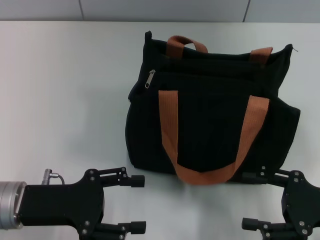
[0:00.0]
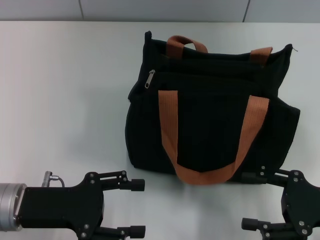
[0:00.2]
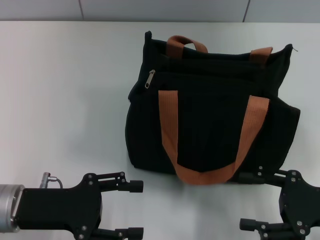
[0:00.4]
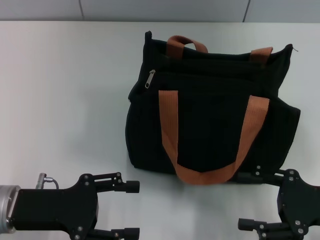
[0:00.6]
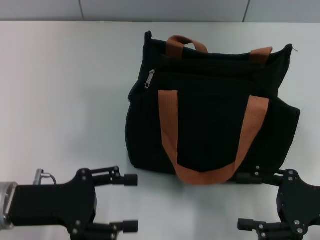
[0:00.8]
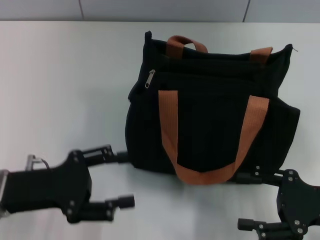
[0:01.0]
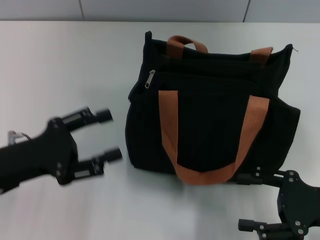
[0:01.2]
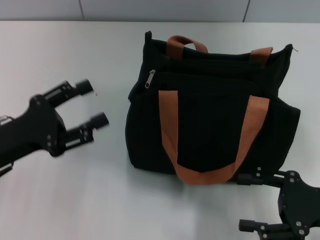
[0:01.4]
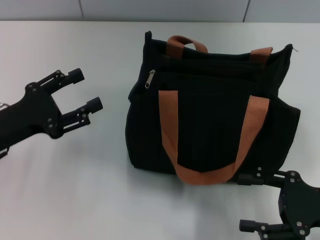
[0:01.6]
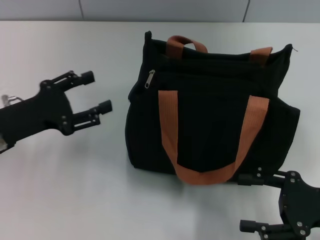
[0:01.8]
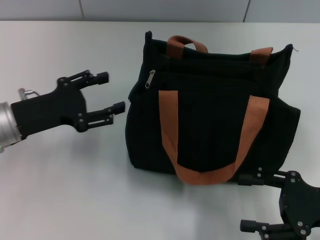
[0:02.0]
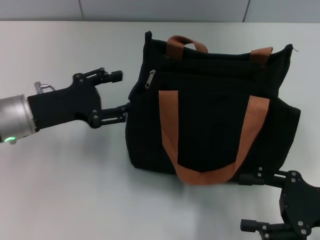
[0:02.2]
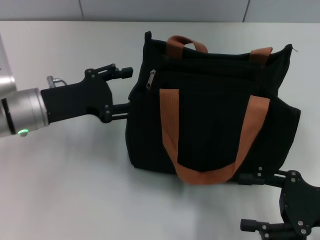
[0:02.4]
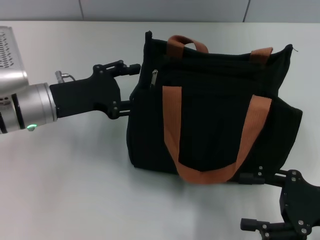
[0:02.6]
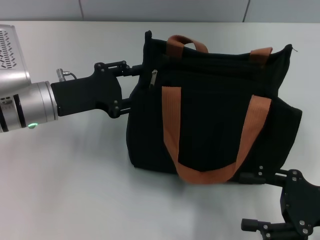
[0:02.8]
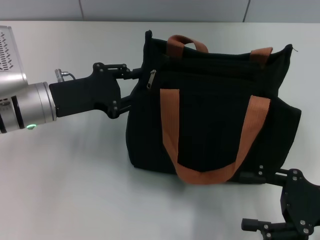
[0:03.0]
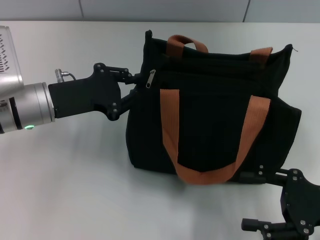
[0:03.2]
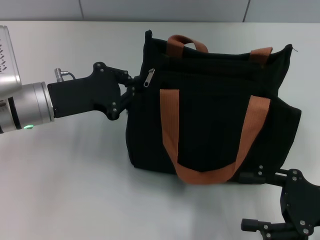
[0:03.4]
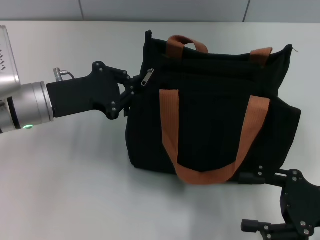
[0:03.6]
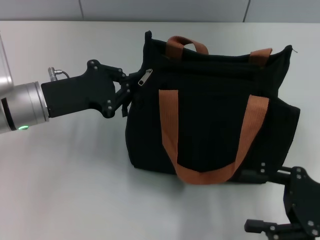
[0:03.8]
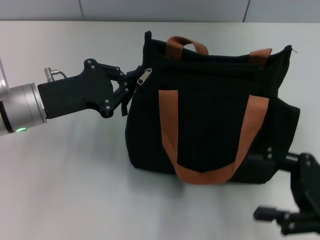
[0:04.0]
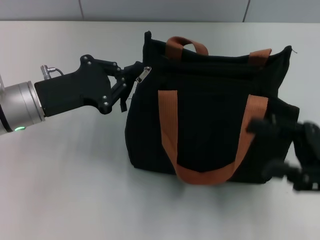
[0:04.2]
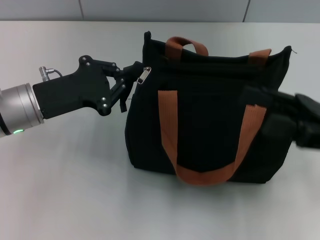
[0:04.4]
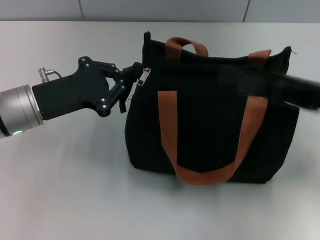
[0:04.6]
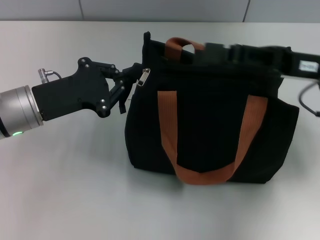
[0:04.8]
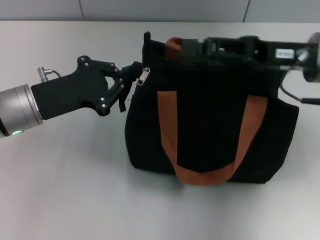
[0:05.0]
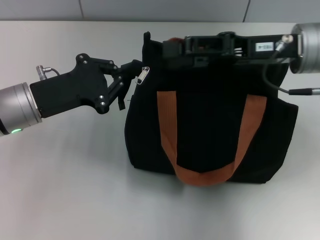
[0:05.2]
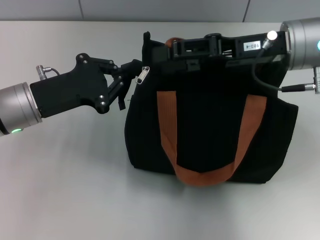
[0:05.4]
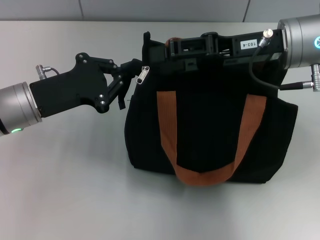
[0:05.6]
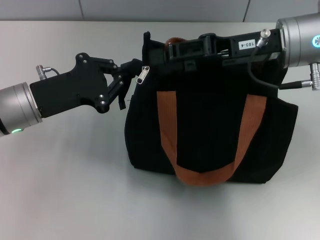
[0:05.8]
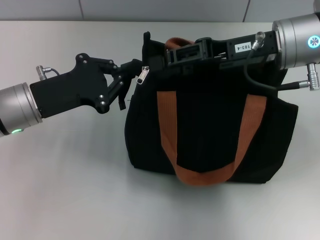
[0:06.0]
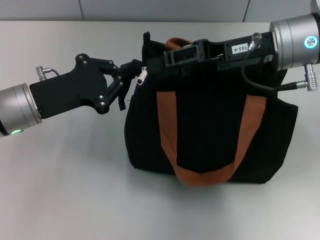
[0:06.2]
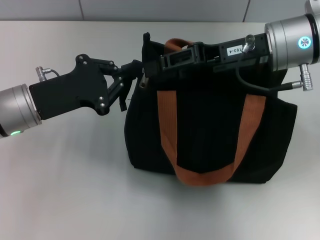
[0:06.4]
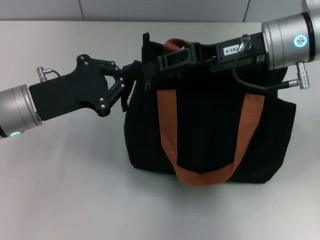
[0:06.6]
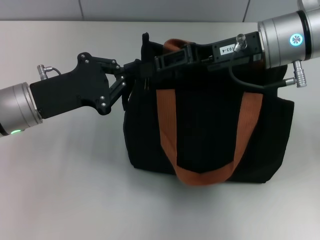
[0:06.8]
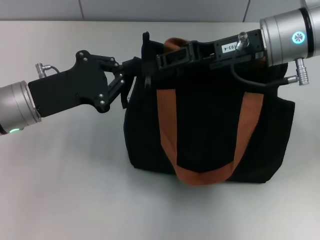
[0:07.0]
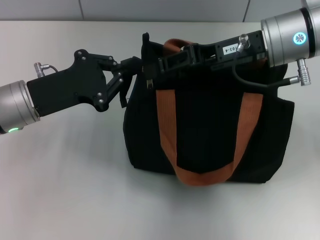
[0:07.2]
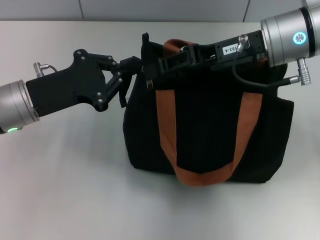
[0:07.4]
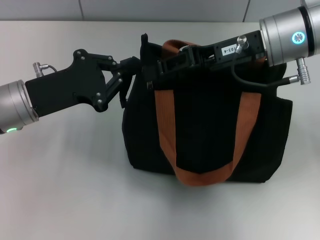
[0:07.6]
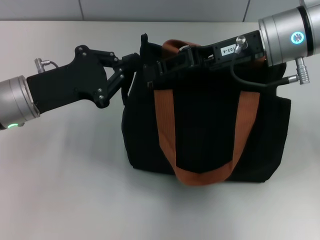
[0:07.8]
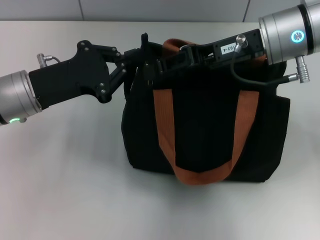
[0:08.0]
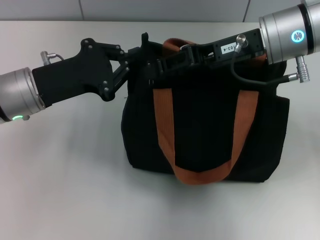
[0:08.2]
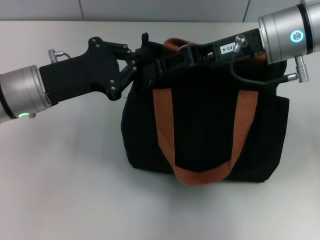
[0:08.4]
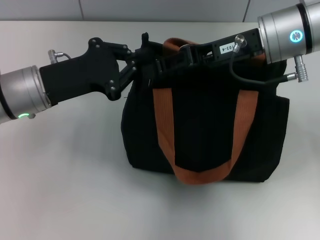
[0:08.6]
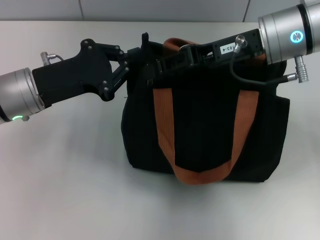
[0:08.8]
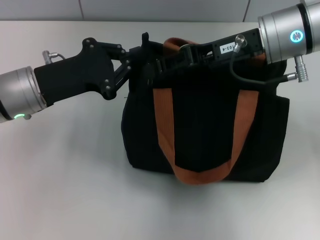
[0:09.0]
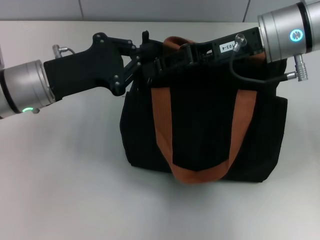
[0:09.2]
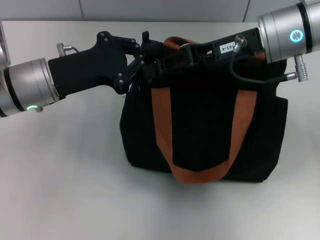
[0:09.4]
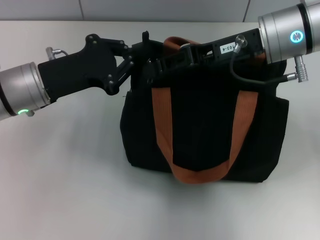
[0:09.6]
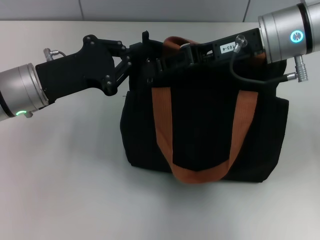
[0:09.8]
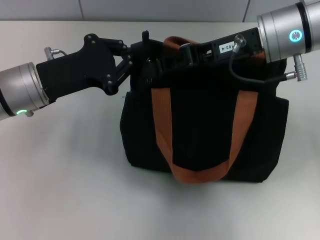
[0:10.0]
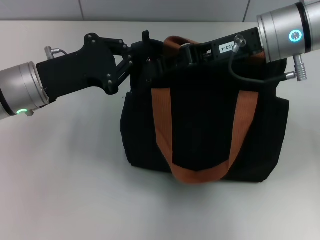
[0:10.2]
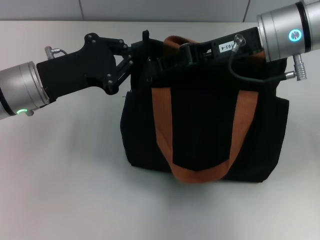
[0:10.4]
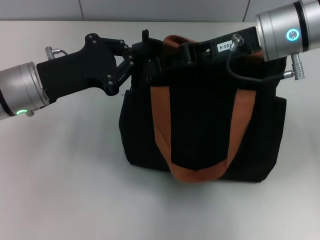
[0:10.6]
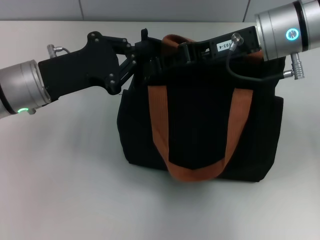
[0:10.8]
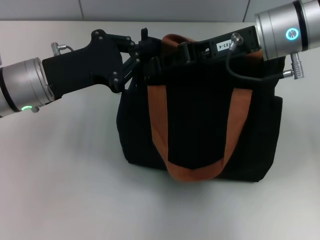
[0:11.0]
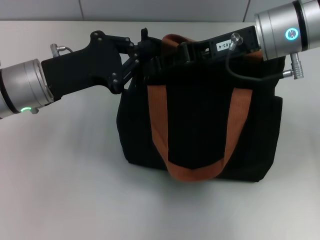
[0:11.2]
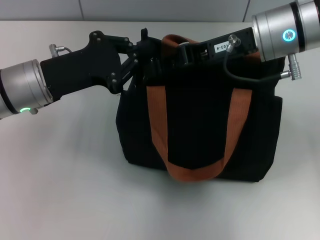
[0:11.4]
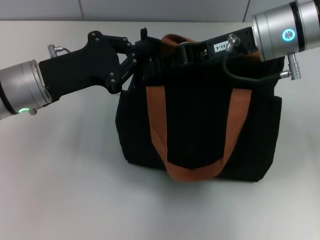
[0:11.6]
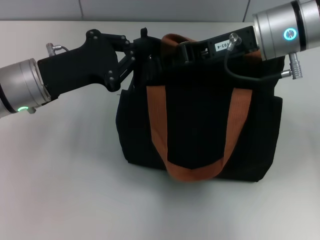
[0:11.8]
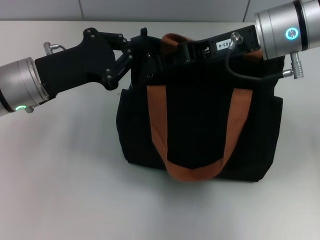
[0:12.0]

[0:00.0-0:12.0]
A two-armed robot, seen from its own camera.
0:00.0 to 0:01.6: The left gripper shifts by some 5 cm.
0:01.6 to 0:03.0: The left gripper moves forward and to the right, roughly 10 cm.
0:03.0 to 0:04.4: The left gripper closes its fingers, while the right gripper heads upward and forward, covering approximately 10 cm.
0:04.4 to 0:06.0: The right gripper travels forward, to the left and upward by about 15 cm.
0:06.0 to 0:10.4: The grippers stay close to where they were, moving slightly.
0:10.4 to 0:12.0: Neither gripper changes place.

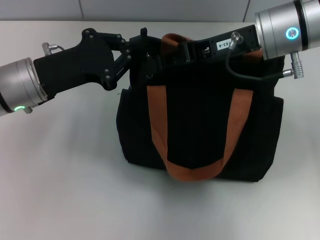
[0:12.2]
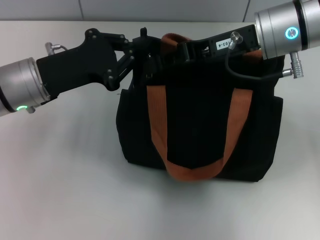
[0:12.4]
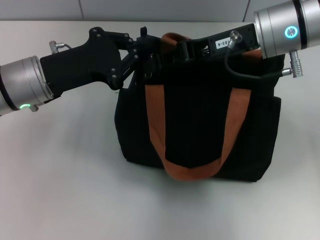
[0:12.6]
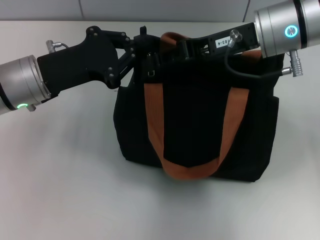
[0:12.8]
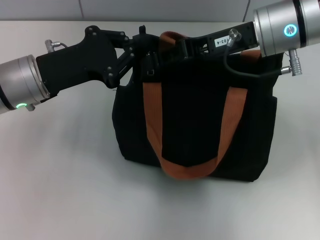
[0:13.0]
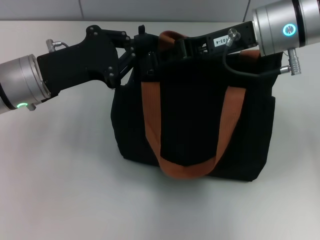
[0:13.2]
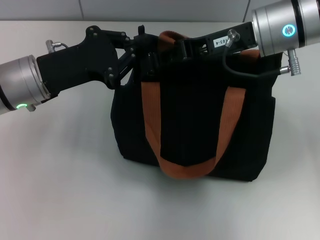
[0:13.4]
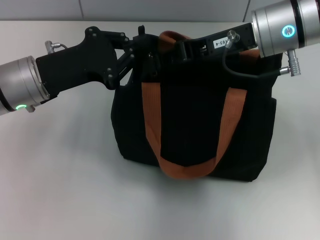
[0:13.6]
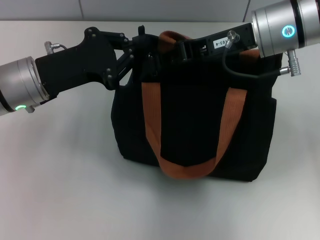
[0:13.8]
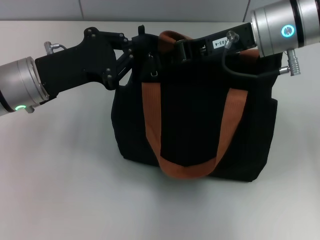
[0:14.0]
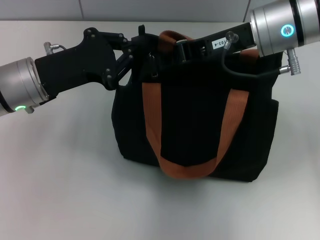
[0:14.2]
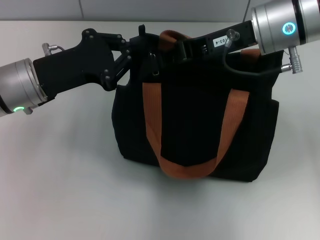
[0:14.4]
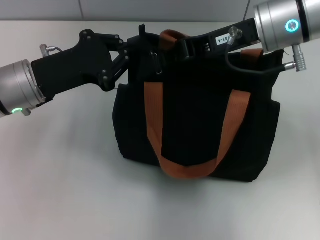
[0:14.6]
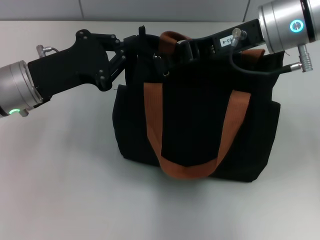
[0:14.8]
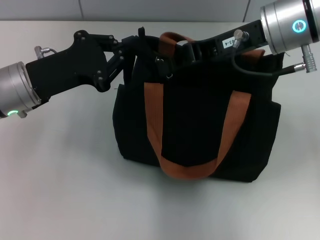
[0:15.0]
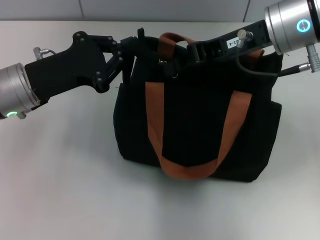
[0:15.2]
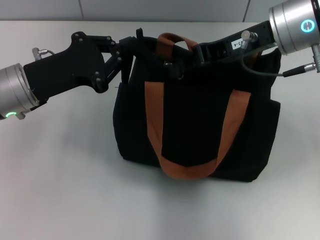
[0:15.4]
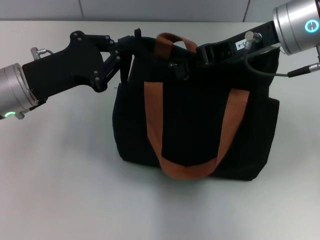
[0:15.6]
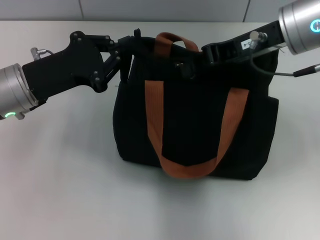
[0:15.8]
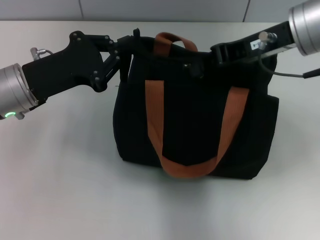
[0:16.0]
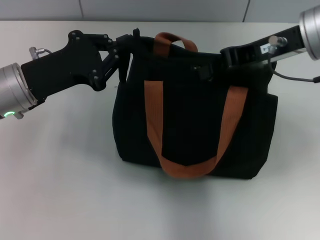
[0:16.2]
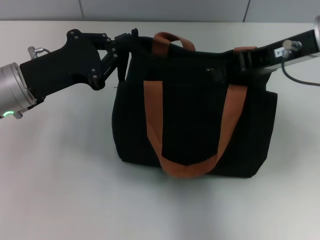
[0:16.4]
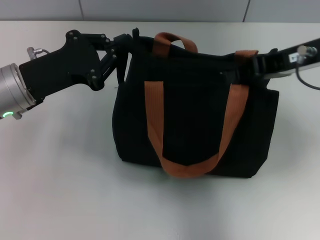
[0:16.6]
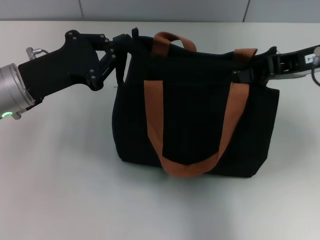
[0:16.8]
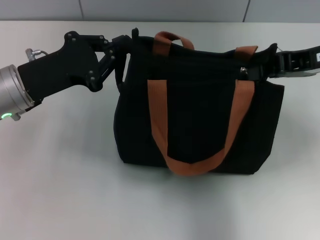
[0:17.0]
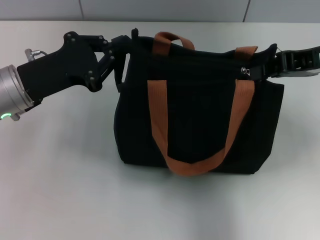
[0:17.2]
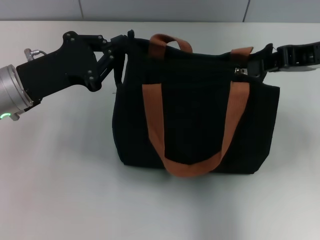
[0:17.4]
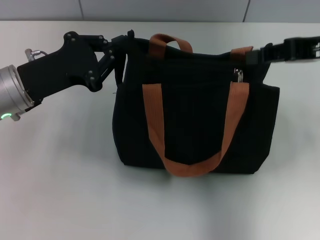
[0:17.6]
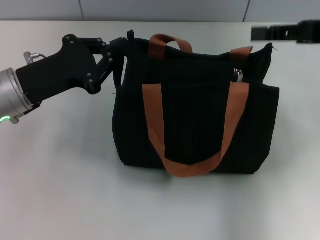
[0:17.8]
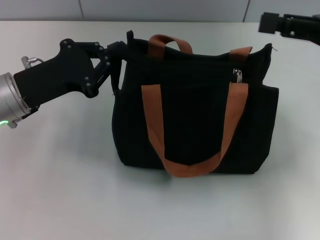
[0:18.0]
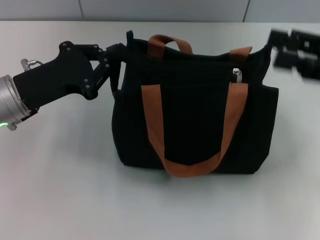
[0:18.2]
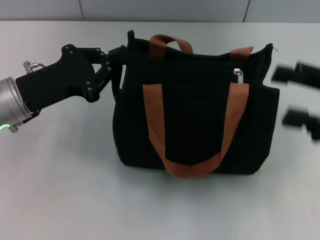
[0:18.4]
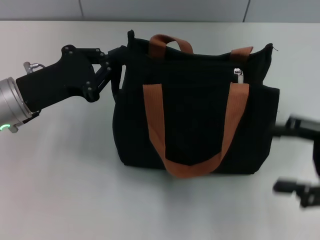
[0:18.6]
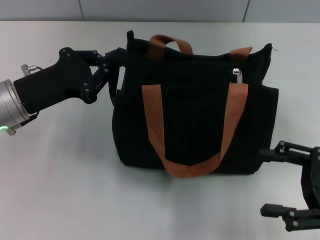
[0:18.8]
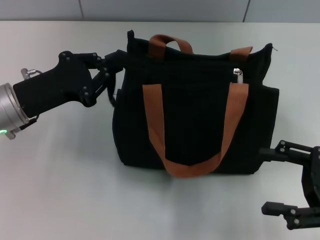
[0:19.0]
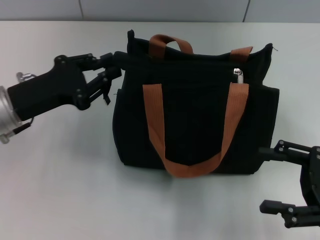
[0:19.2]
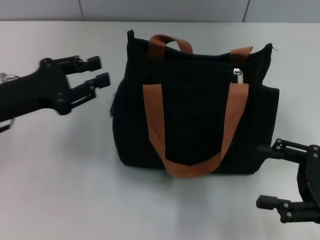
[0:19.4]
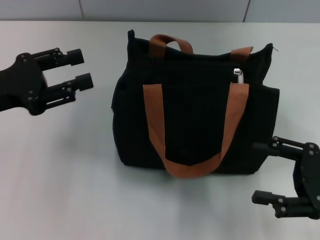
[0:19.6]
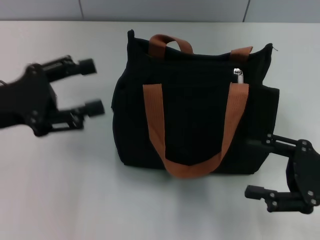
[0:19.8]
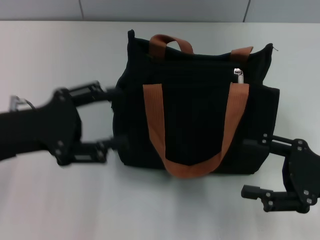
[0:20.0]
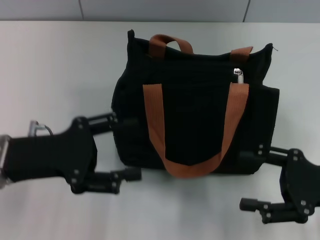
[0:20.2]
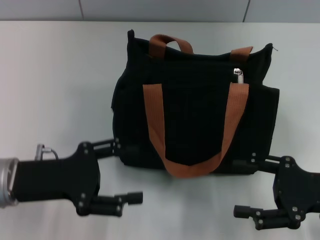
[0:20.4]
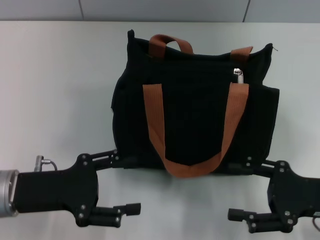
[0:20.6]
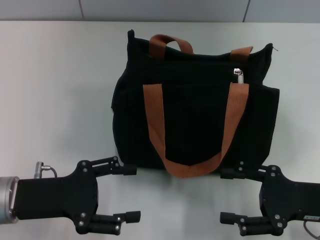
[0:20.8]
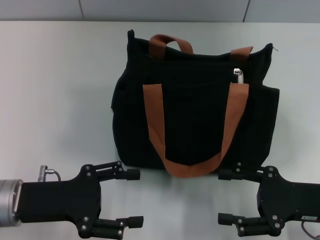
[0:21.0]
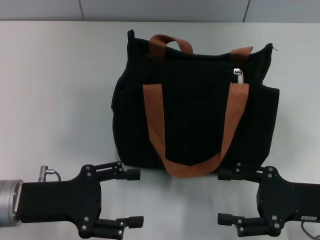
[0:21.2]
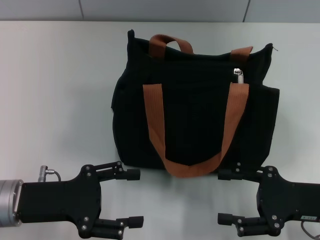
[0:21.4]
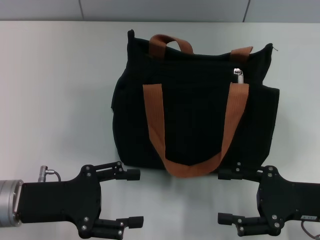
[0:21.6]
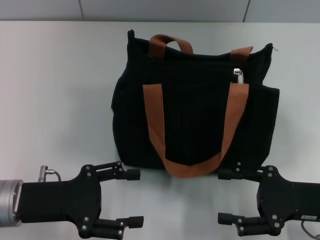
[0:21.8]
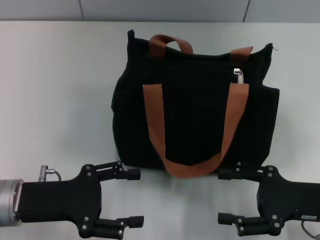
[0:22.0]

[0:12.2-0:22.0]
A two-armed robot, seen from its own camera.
Step, 0:12.2 to 0:17.6: Pull up the zipper with your right hand.
0:12.2 to 0:13.6: Both grippers stay about where they are.
0:13.6 to 0:15.0: The grippers make only small movements.
0:15.0 to 0:16.4: The right gripper moves to the right, roughly 5 cm.
0:16.4 to 0:17.8: The right gripper moves to the right, roughly 10 cm.
0:17.8 to 0:19.2: The right gripper is displaced downward and backward by about 20 cm, and opens.
0:19.2 to 0:20.6: The left gripper moves backward, some 10 cm, and opens up.
0:20.6 to 0:22.0: The grippers stay close to where they were, moving slightly.
